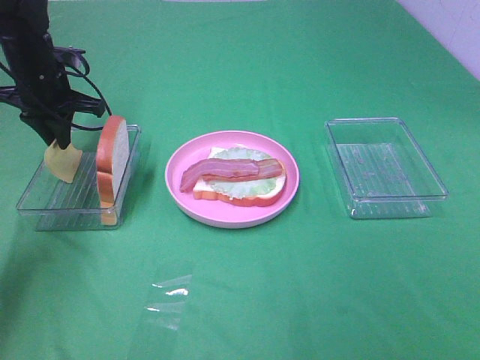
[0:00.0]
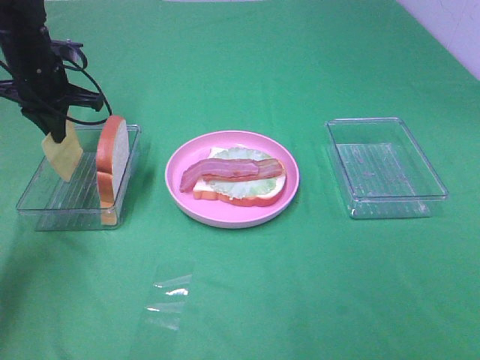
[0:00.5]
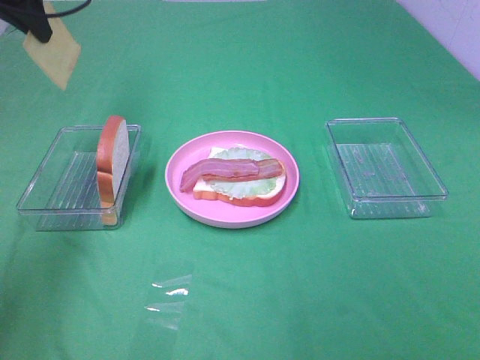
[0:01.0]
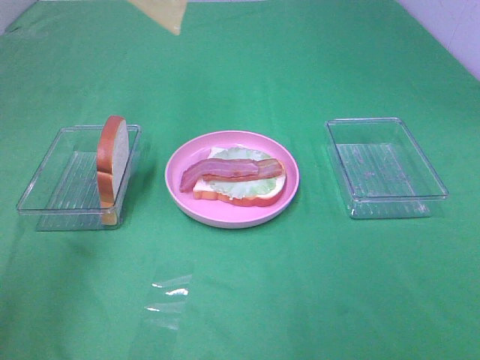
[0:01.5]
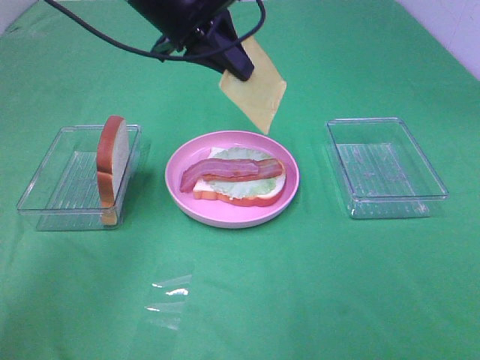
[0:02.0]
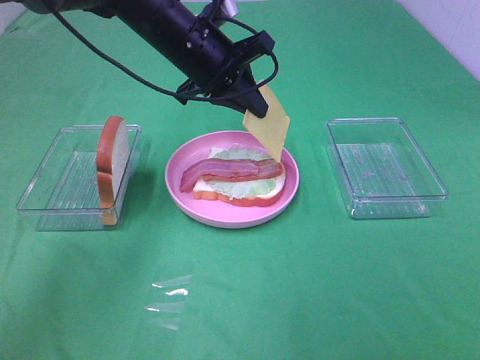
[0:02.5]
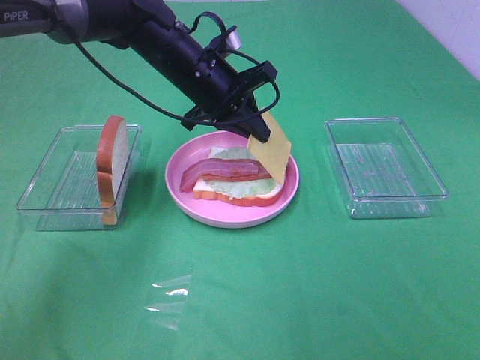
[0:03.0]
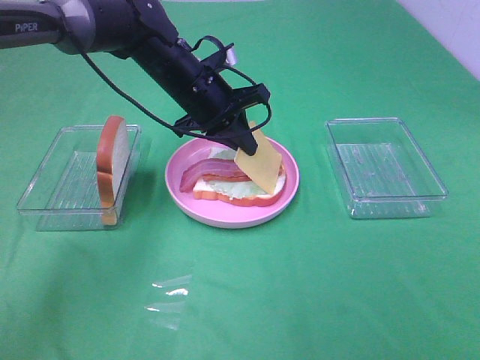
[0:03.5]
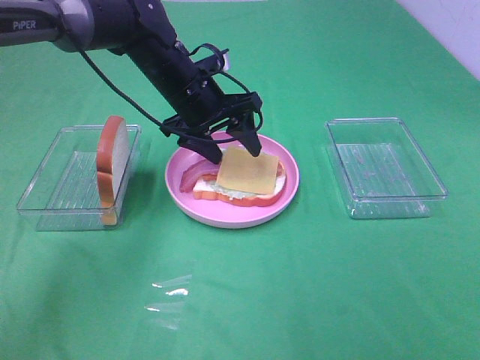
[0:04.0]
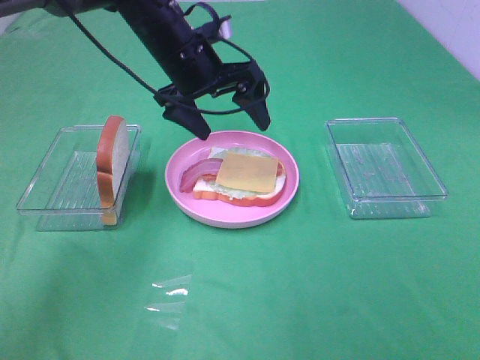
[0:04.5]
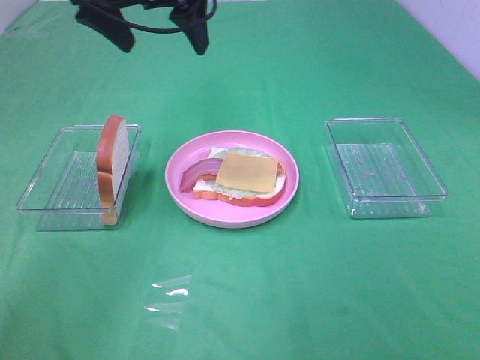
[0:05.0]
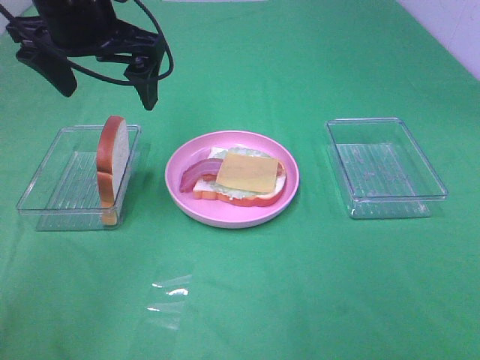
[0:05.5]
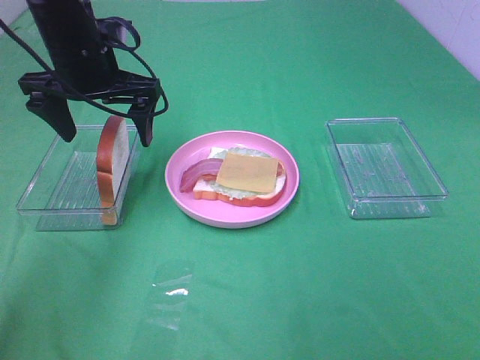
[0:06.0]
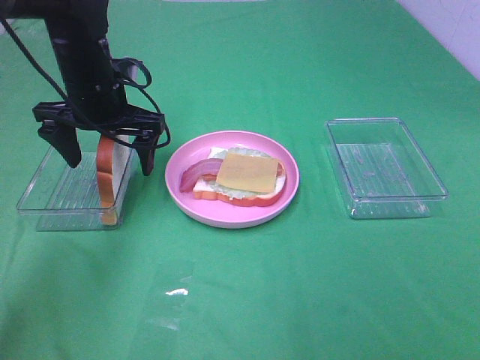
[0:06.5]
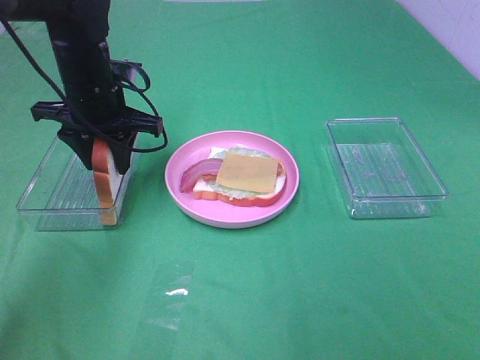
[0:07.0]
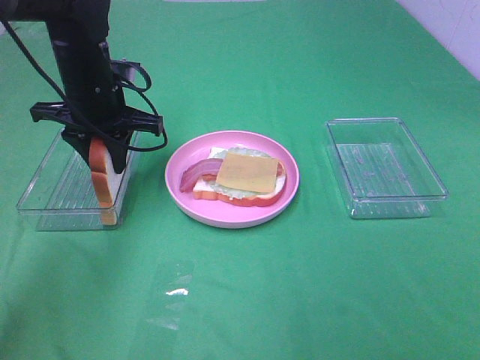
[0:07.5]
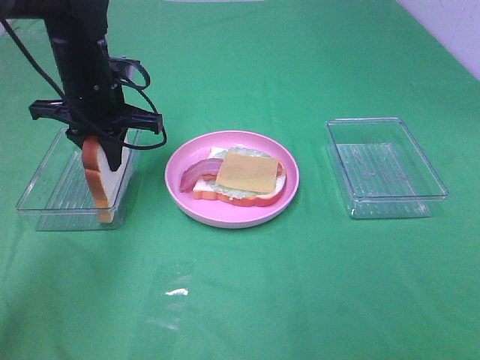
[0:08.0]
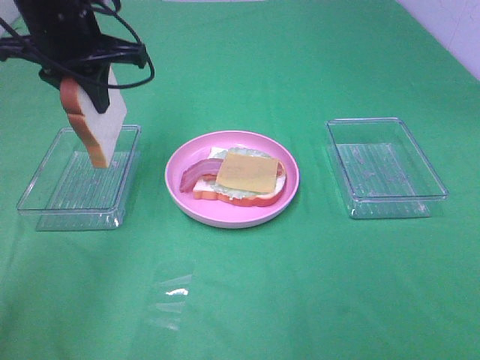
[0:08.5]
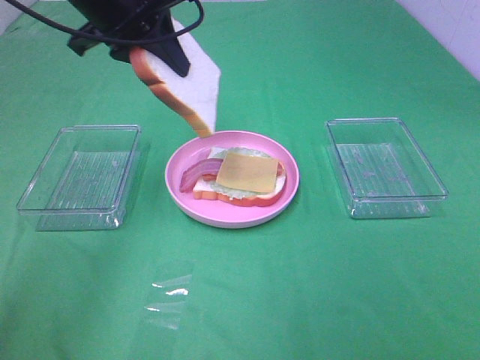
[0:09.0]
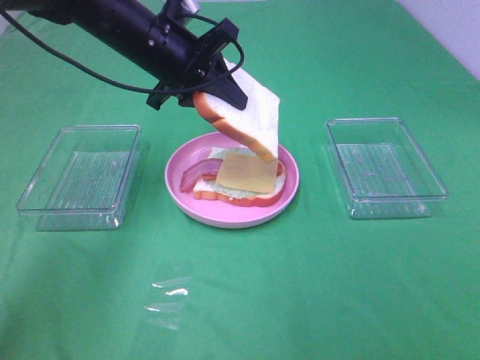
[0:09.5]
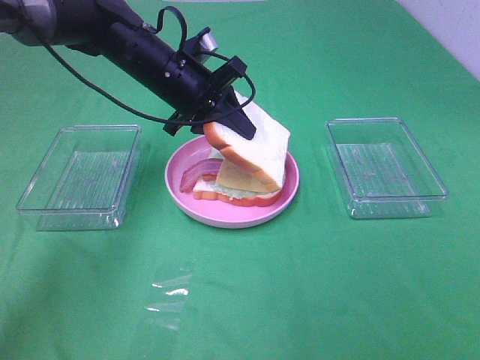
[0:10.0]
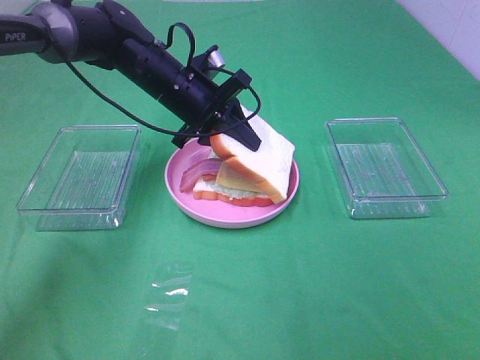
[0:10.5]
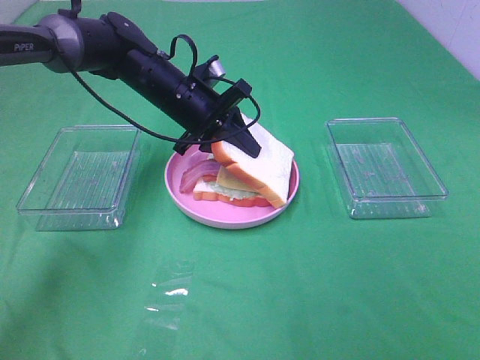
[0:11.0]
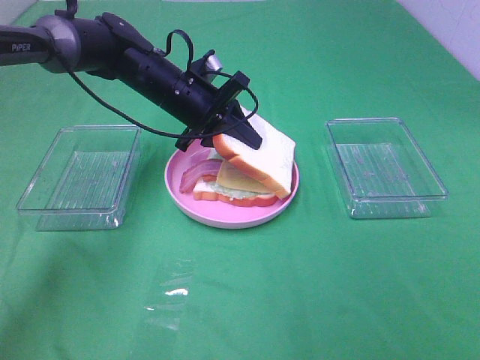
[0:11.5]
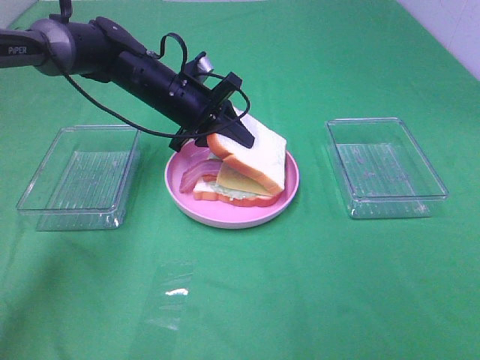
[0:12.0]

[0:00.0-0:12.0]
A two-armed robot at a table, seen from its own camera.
Task of the whole recording: Make sandwiches.
Step, 0:00.5 to 0:04.0: Left hand:place the cheese slice on top of the bacon.
Step, 0:04.5 to 0:07.5: Left hand:grab the bread slice.
0:00.0 to 0:02.0: The left gripper shifts some 20 cm to the right and upward.
0:02.0 to 0:04.0: The left gripper is displaced downward by about 10 cm, and opens.
0:04.0 to 0:06.0: The left gripper heads to the left and upward, covering about 10 cm.
0:06.0 to 0:08.0: The left gripper closes.
0:08.0 to 0:10.0: The left gripper moves to the right, some 10 cm, and reaches some 10 cm upward, then returns.
0:10.0 to 0:12.0: The left gripper changes place by some 5 cm.

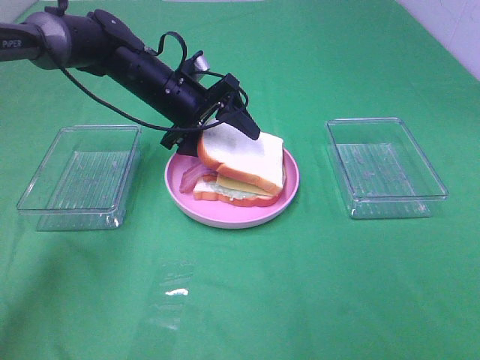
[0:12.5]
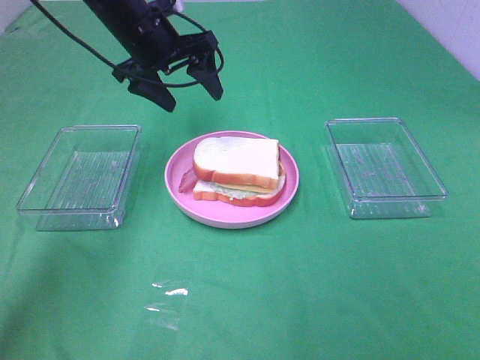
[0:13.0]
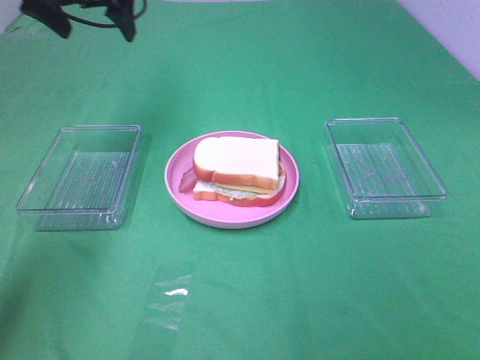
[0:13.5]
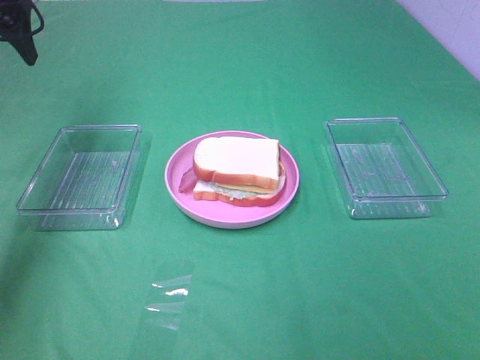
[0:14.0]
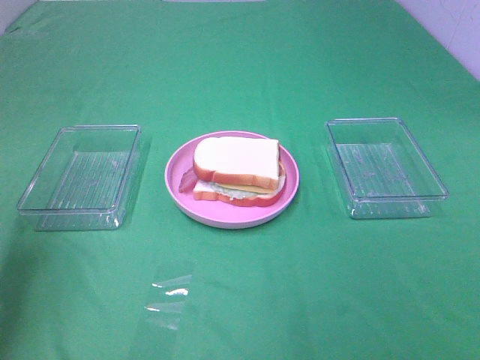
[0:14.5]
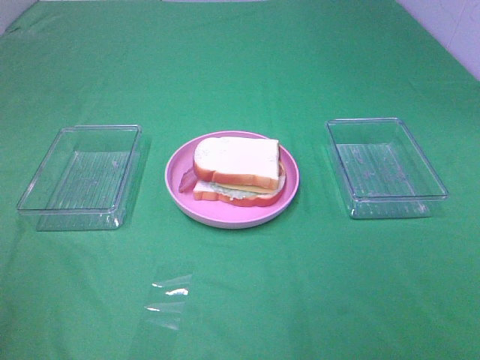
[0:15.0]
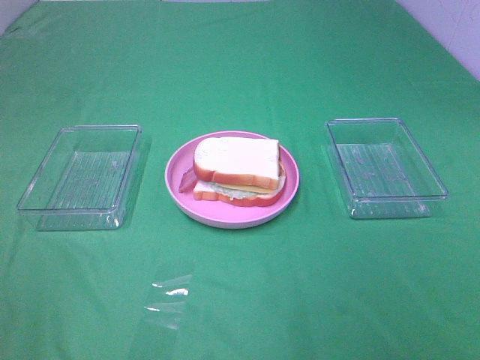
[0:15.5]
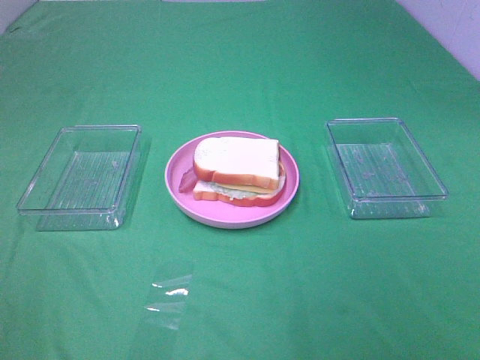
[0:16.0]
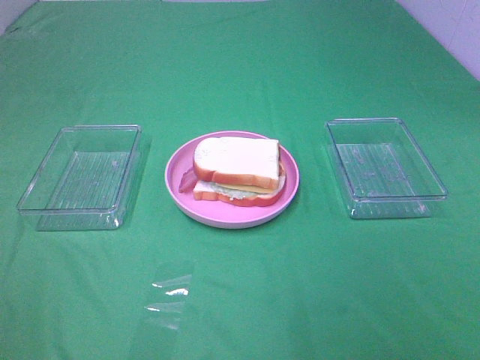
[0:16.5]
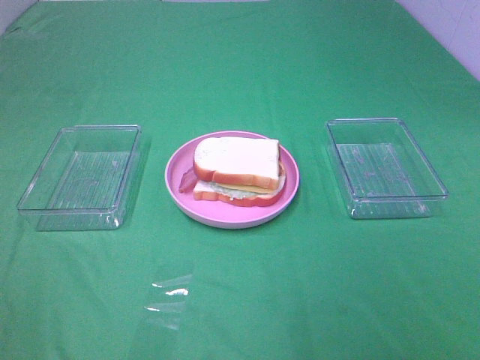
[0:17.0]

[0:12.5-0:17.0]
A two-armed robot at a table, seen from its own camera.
Task of the whole recording: Make sandwiches.
0:12.5 to 0:14.5: The left gripper heads backward, to the left and upward, covering roughly 35 cm.
0:14.5 to 0:17.0: The left gripper is displaced backward by some 20 cm.

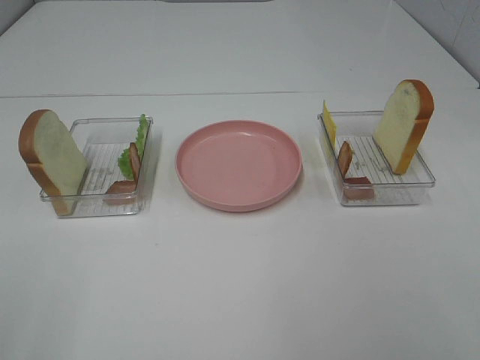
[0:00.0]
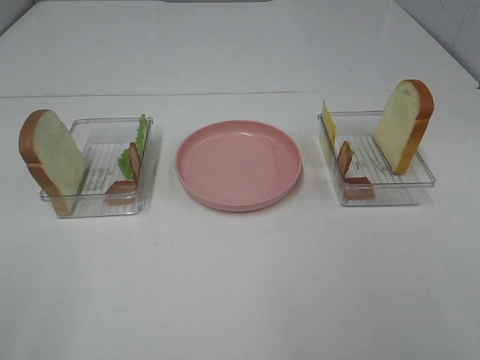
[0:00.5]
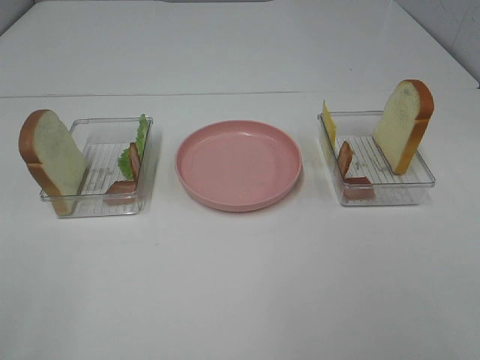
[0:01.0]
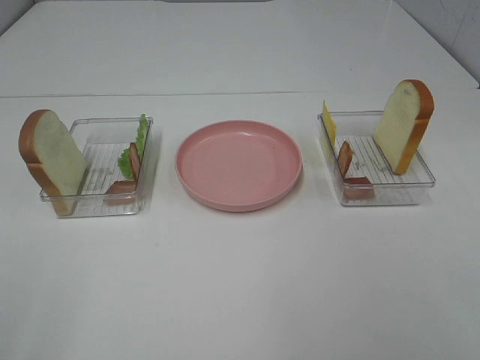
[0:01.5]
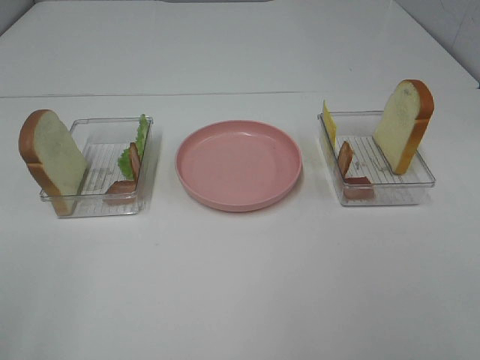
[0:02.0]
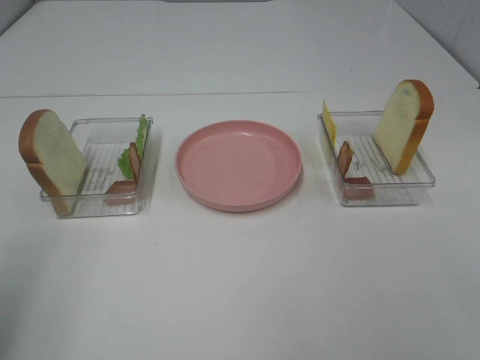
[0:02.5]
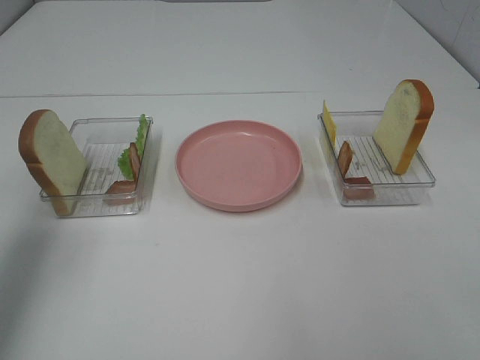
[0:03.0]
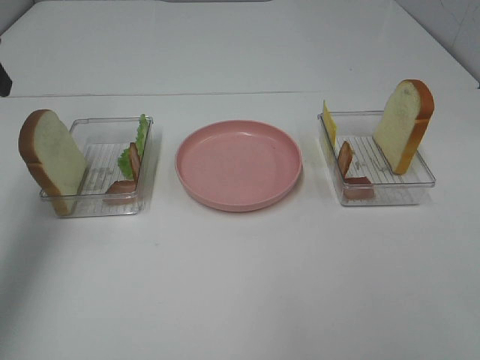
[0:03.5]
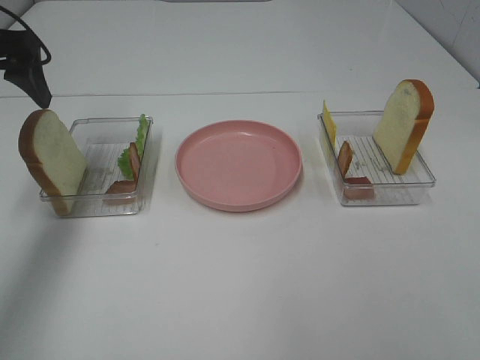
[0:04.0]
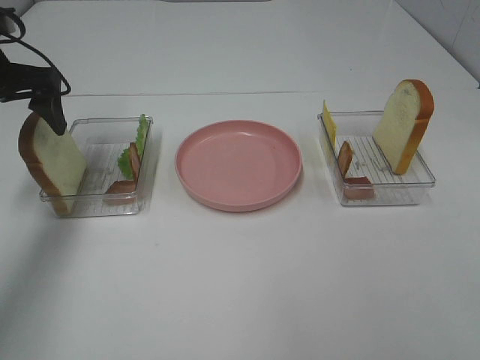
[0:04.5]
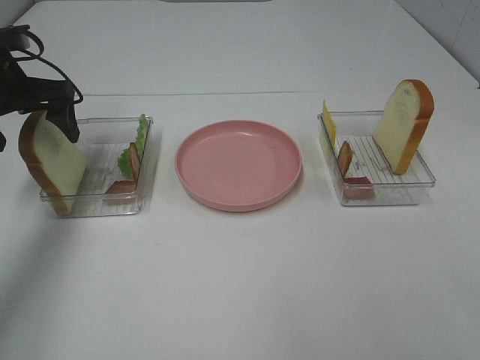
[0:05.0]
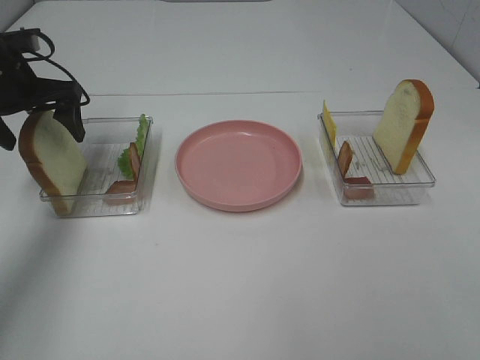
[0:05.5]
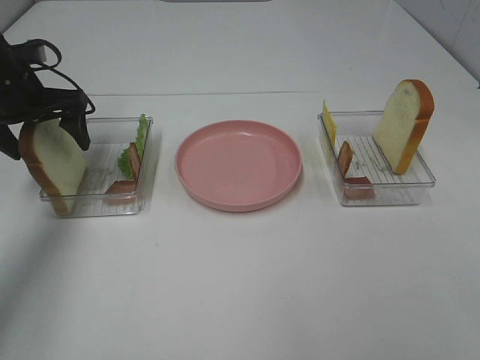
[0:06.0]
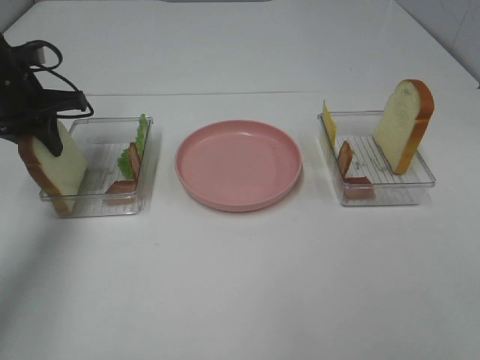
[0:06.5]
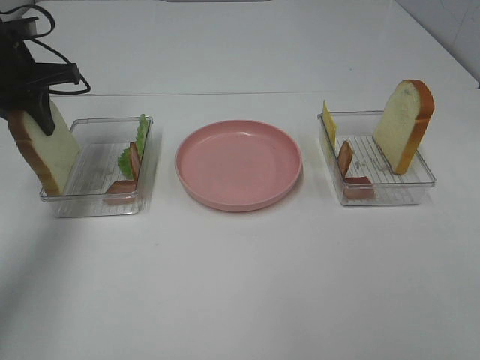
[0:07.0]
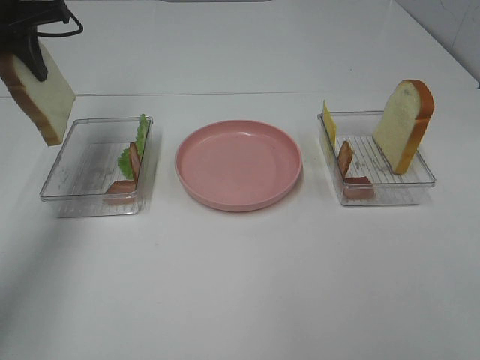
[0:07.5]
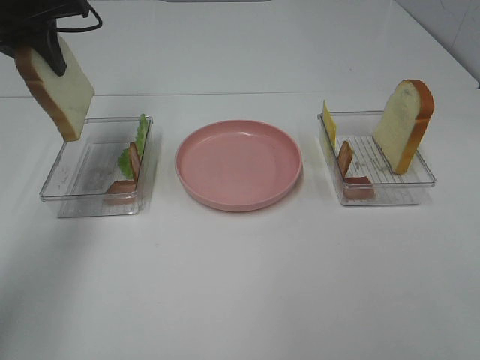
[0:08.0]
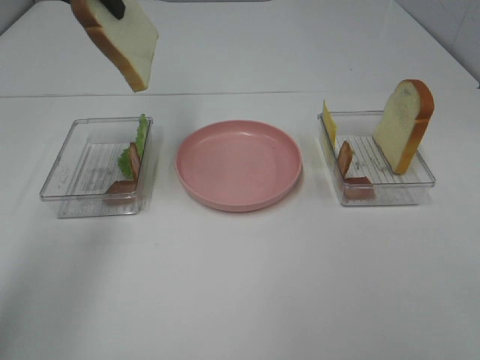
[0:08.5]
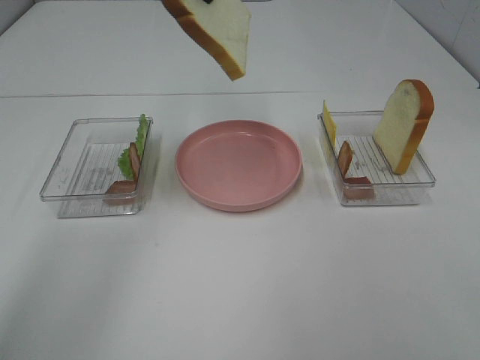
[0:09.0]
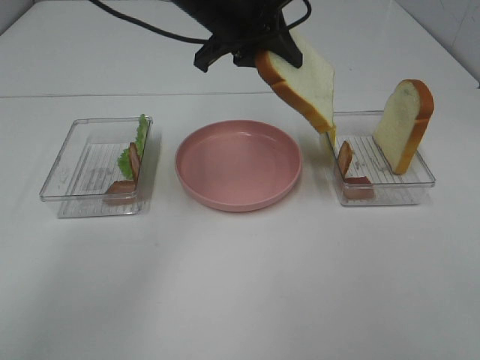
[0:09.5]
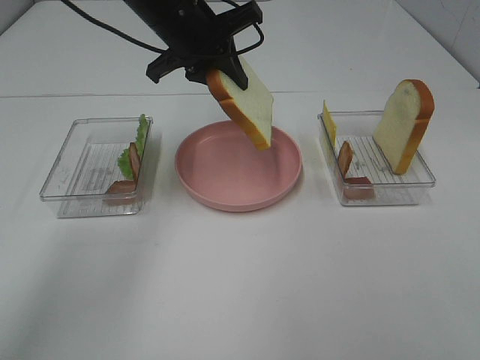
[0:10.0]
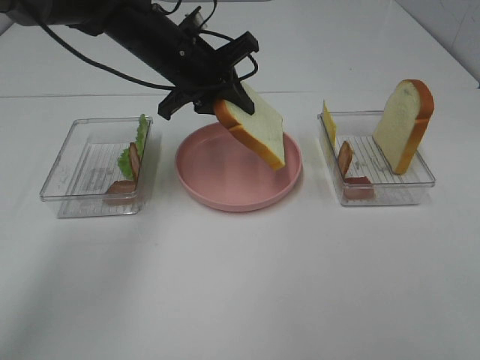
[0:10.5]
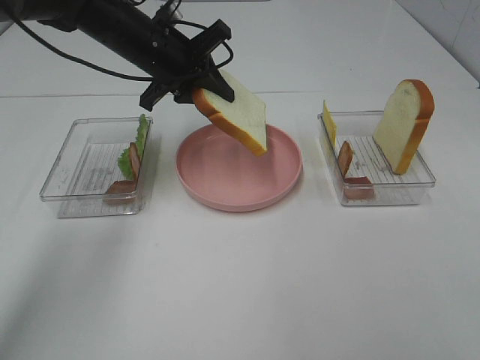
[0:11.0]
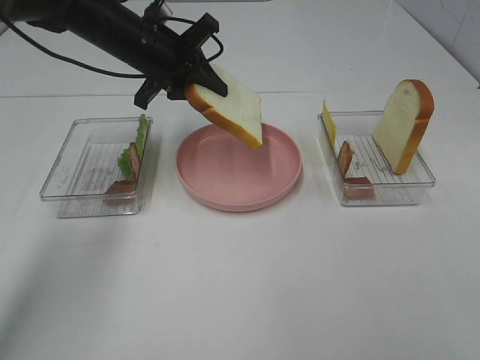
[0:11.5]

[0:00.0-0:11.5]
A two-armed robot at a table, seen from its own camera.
Task of the whole recording: Make sandwiches.
Step, 0:00.0 to 0:06.5: Left hand:grab the bread slice.
0:02.0 to 0:04.0: The left gripper goes approximately 35 cm forward.
0:04.0 to 0:06.0: The left gripper shifts approximately 10 cm downward and forward.
0:06.0 to 0:07.5: The left gripper moves upward, about 10 cm, and closes up.
0:07.5 to 0:09.5: The left gripper heads to the right, covering some 25 cm.
0:09.5 to 0:11.5: The left gripper shifts approximately 10 cm to the left and downward.
